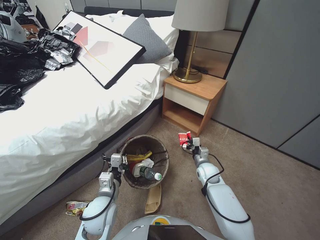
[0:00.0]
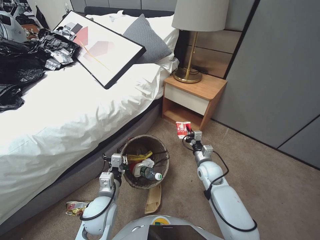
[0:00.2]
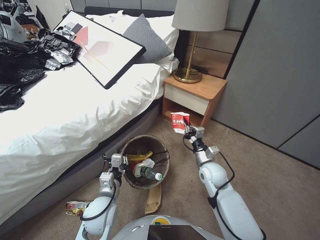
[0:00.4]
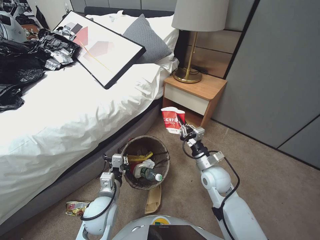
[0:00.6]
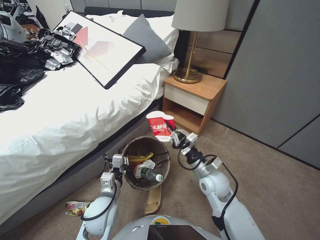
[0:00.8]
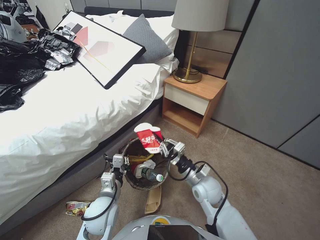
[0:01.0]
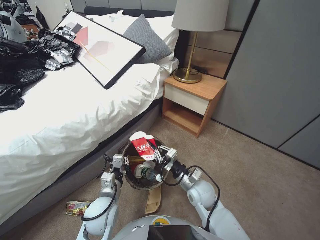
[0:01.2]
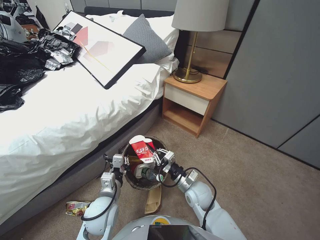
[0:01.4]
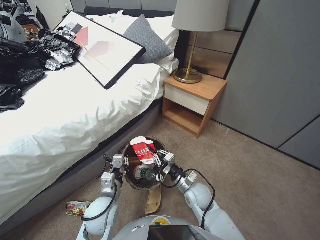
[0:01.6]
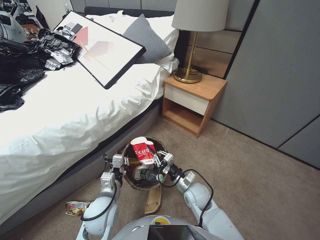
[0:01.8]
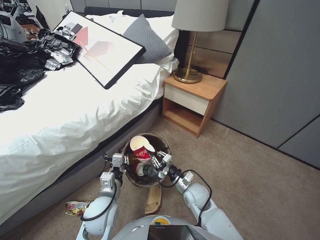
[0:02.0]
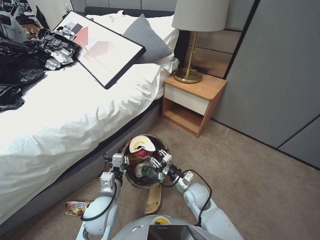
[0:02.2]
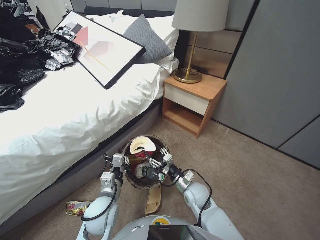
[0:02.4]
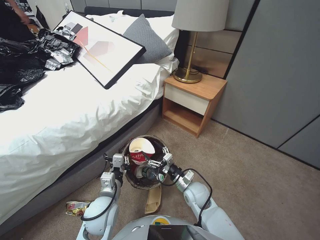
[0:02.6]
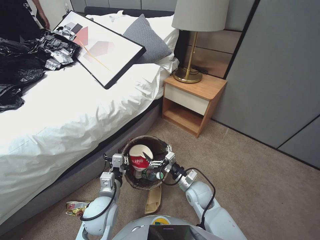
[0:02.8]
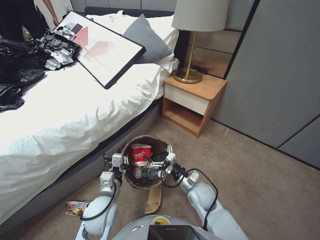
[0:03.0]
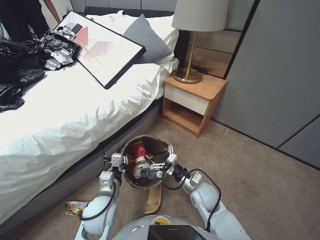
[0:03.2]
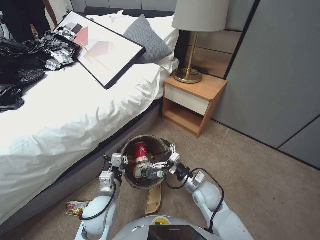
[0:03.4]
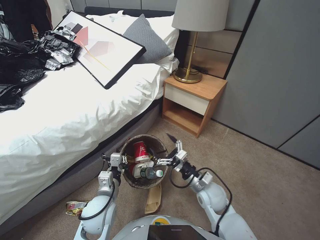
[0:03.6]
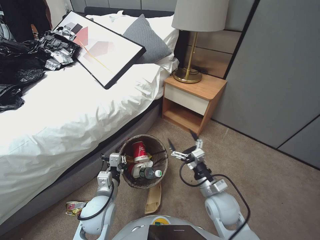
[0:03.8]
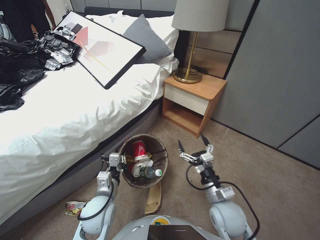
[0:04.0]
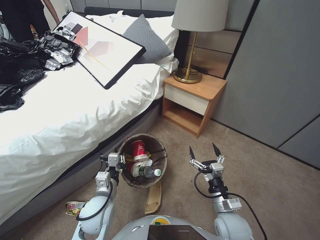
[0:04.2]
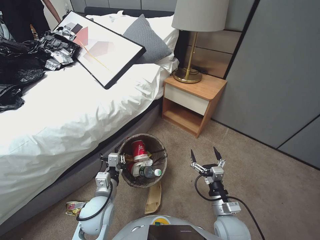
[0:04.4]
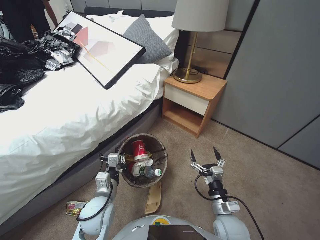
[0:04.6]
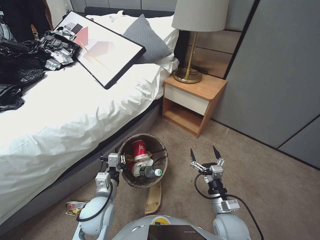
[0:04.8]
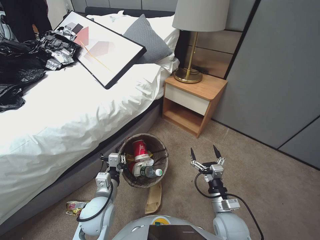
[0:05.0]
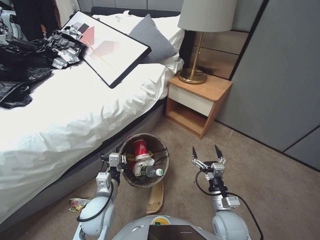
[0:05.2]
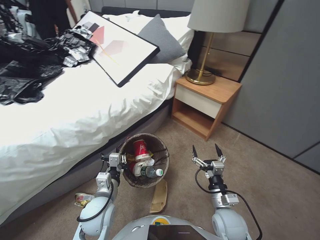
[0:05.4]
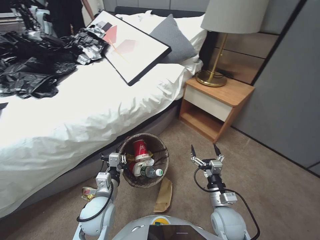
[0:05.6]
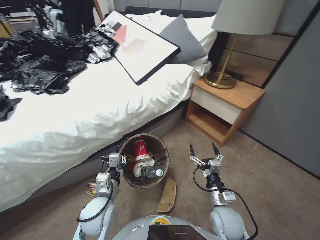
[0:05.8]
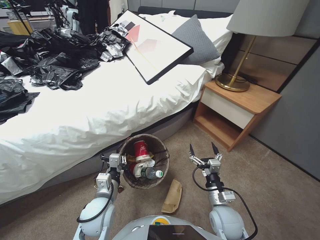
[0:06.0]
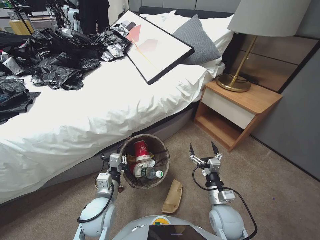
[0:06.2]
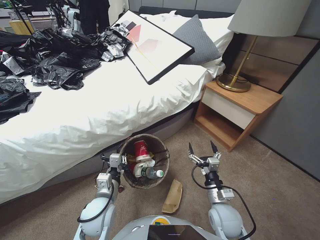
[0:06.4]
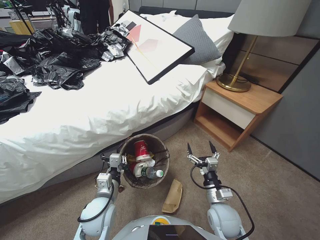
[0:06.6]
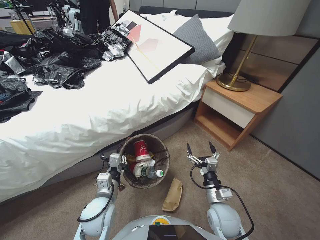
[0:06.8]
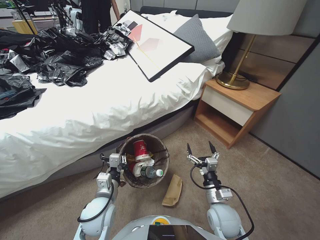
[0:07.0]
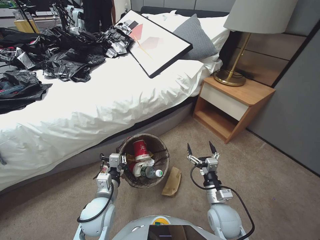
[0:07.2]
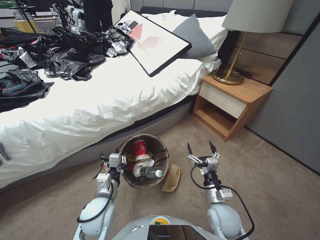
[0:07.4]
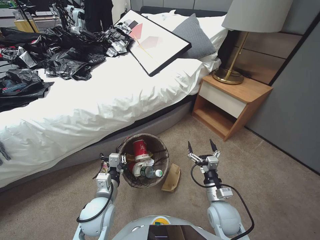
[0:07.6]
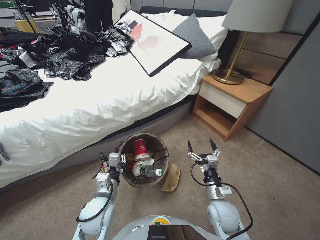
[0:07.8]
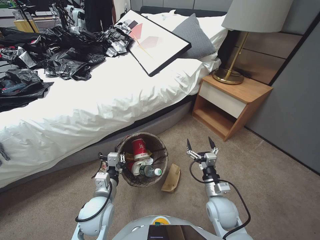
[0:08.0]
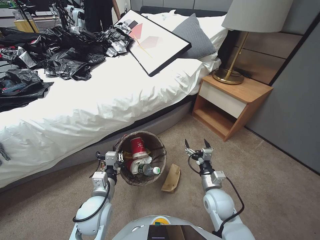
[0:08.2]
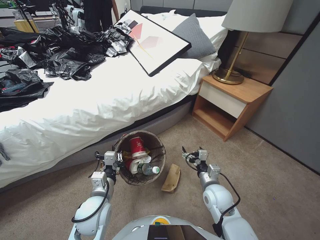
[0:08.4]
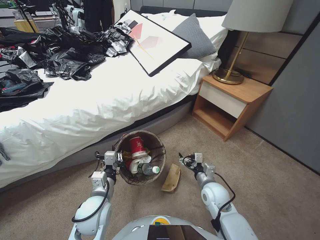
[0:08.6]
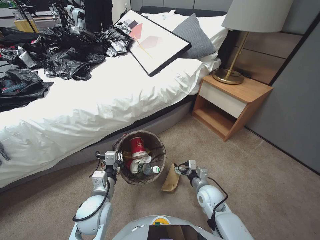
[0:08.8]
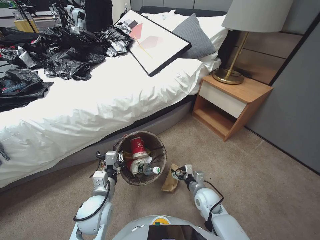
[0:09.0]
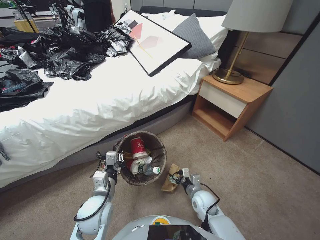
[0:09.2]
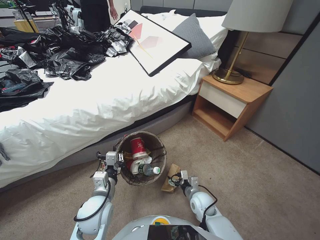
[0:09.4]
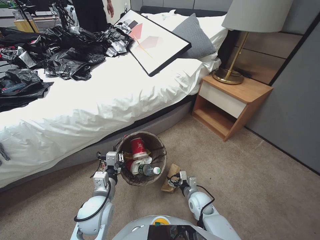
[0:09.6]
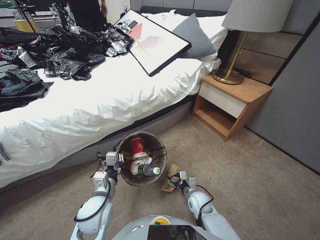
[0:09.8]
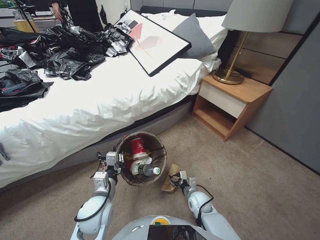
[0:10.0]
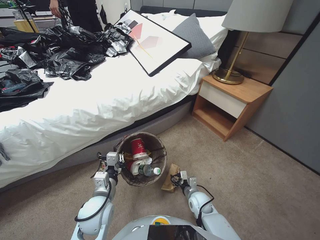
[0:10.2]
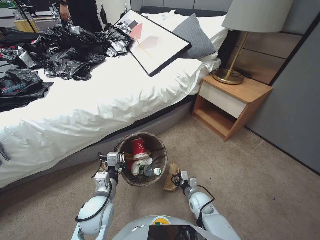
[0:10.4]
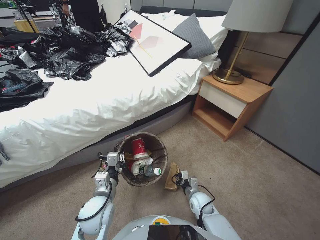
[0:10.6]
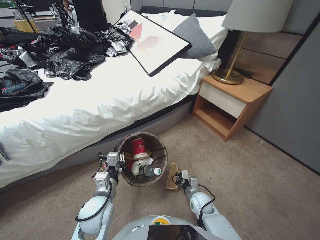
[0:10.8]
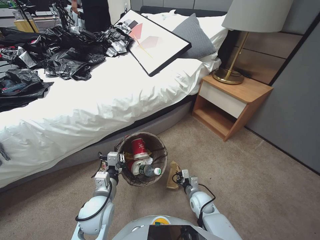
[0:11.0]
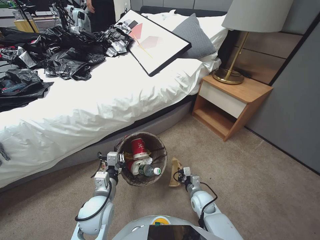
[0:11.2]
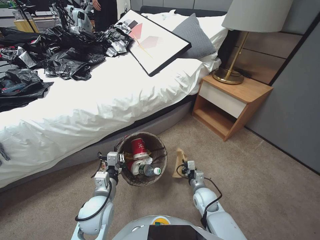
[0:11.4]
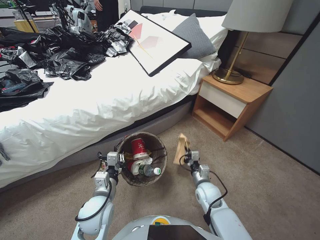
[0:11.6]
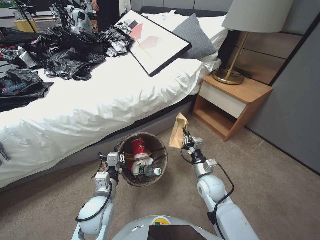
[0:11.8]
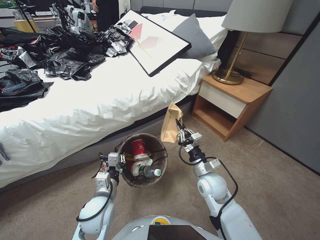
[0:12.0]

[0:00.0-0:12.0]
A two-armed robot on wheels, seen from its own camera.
Task of the whole recording: Pick up the trash bin, then pick up the garbage from the floor and place it into the trash bin.
0:00.0 to 0:01.6: The right gripper heads backward, to the left and upward, covering about 20 cm.
0:01.6 to 0:03.0: The right gripper opens.
0:03.0 to 0:04.4: The right gripper moves backward and to the right, some 15 cm.
0:07.6 to 0:09.0: The right gripper goes some 10 cm forward.
0:09.0 to 0:10.4: The right gripper goes about 10 cm downward, and closes its fingers.
0:10.4 to 0:12.0: The right gripper goes roughly 20 cm upward.

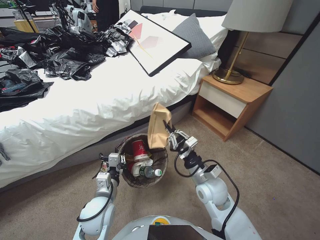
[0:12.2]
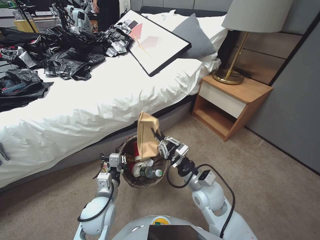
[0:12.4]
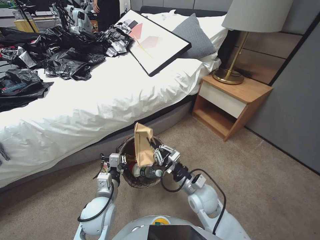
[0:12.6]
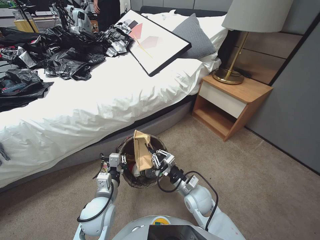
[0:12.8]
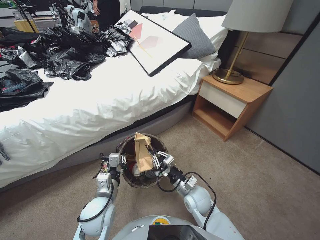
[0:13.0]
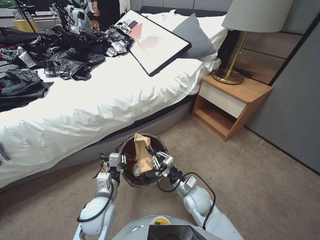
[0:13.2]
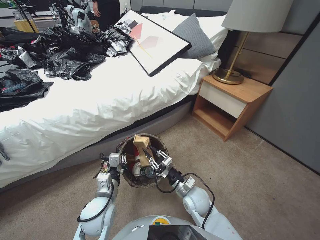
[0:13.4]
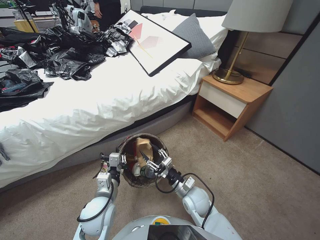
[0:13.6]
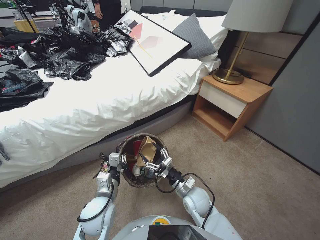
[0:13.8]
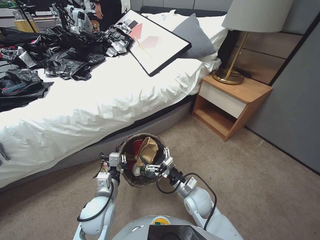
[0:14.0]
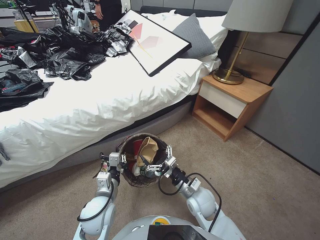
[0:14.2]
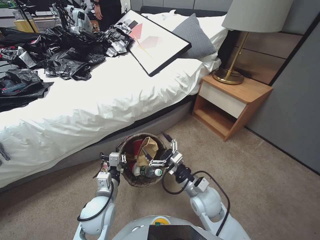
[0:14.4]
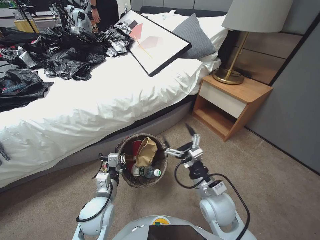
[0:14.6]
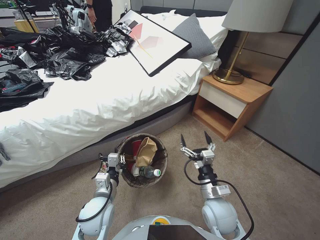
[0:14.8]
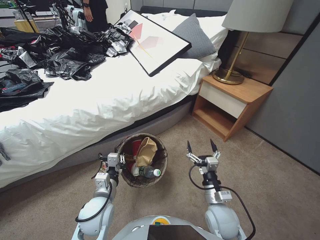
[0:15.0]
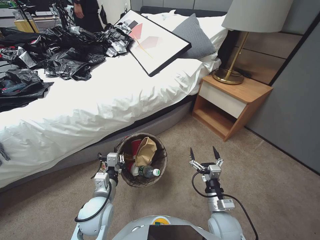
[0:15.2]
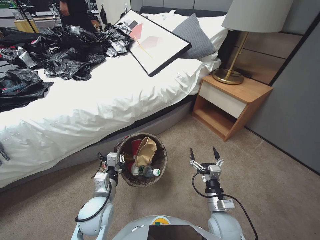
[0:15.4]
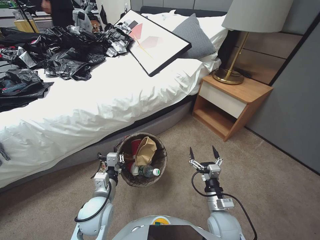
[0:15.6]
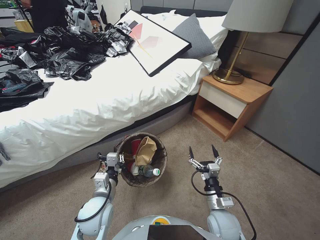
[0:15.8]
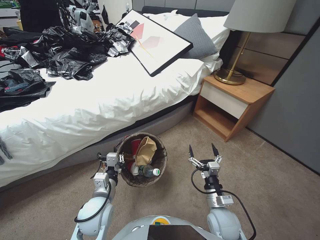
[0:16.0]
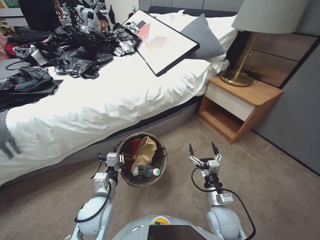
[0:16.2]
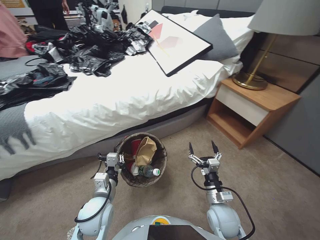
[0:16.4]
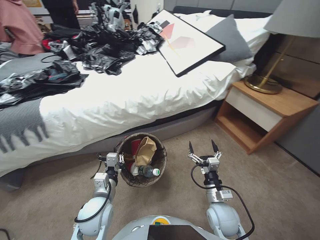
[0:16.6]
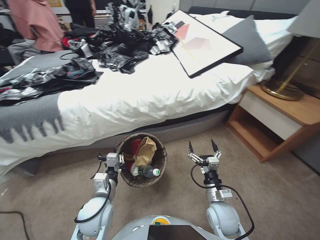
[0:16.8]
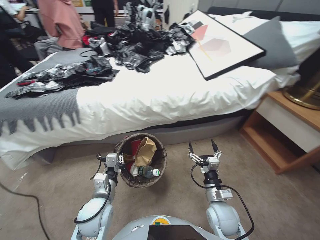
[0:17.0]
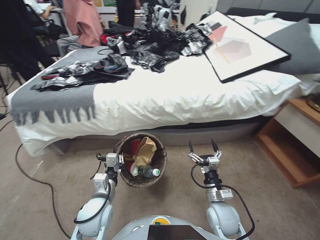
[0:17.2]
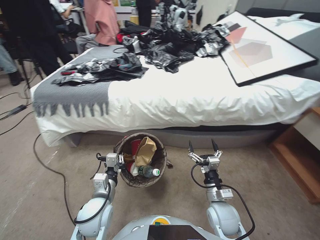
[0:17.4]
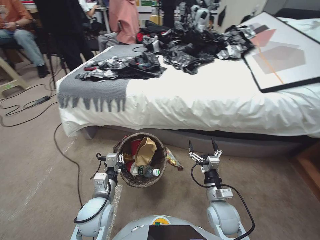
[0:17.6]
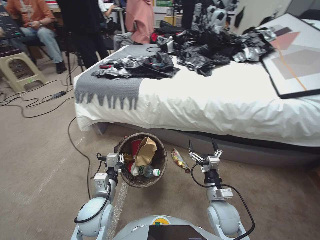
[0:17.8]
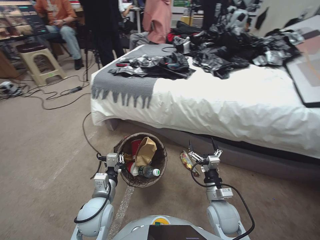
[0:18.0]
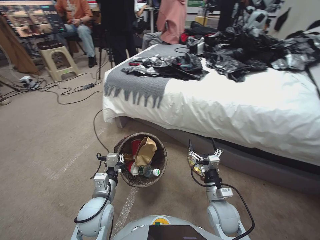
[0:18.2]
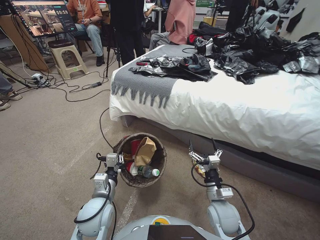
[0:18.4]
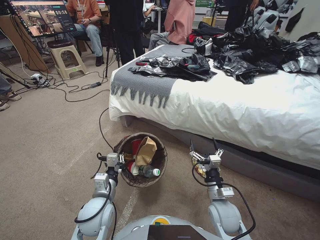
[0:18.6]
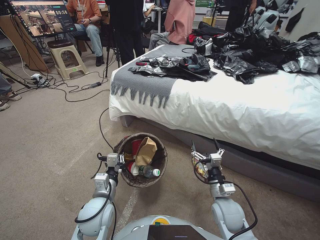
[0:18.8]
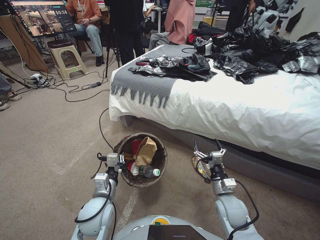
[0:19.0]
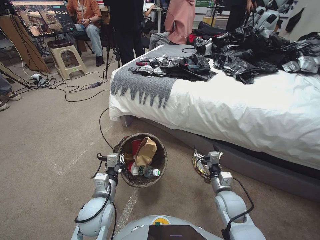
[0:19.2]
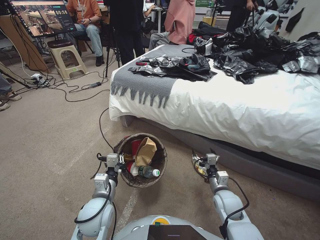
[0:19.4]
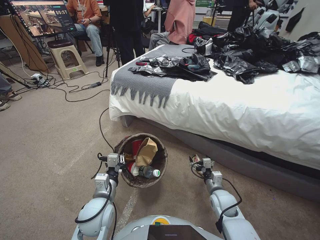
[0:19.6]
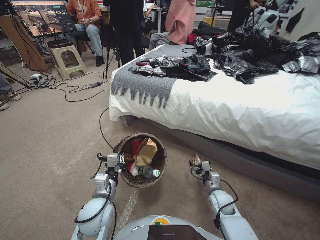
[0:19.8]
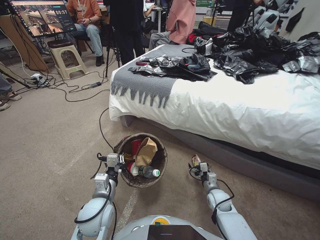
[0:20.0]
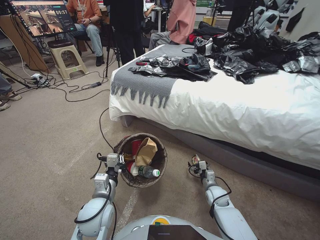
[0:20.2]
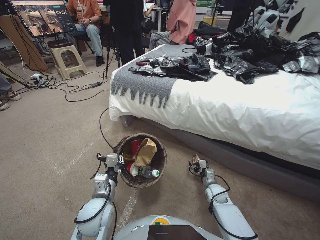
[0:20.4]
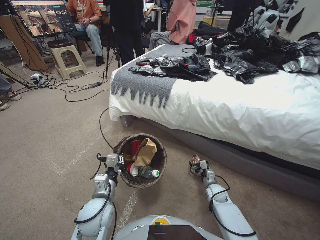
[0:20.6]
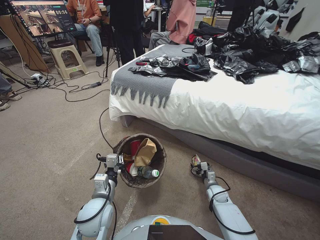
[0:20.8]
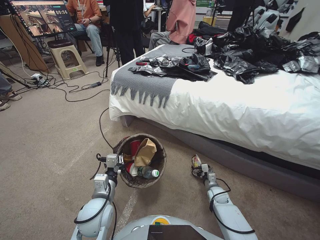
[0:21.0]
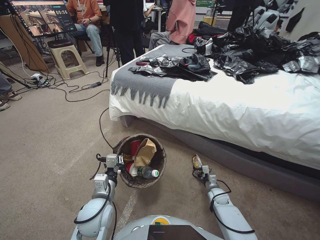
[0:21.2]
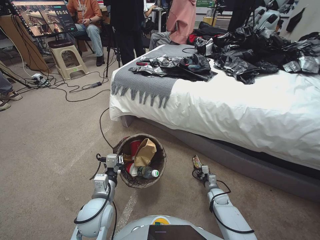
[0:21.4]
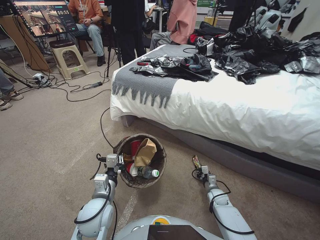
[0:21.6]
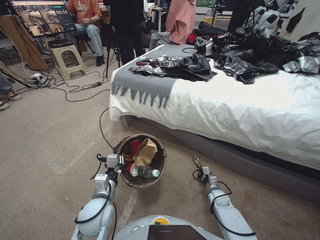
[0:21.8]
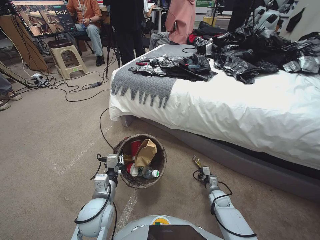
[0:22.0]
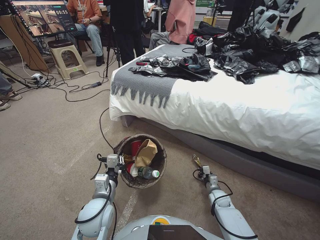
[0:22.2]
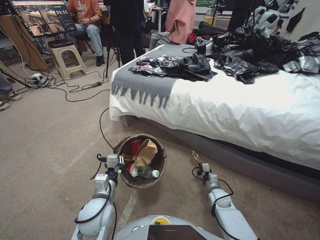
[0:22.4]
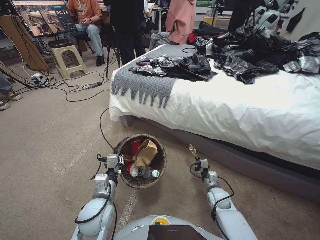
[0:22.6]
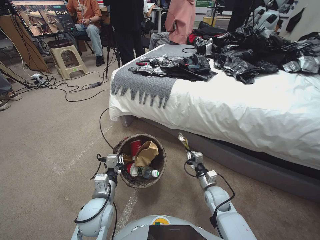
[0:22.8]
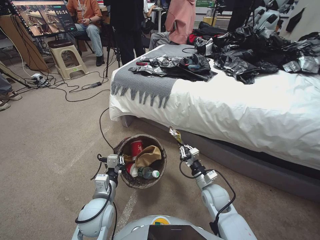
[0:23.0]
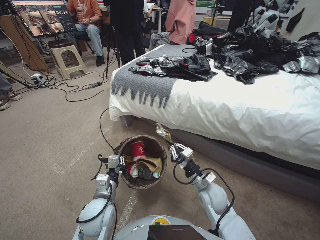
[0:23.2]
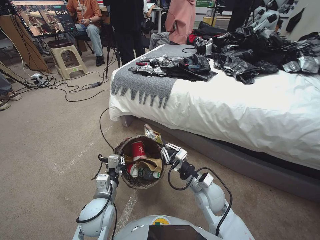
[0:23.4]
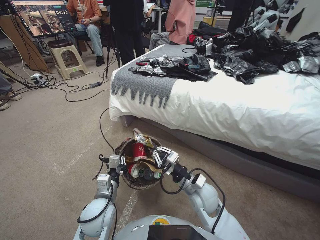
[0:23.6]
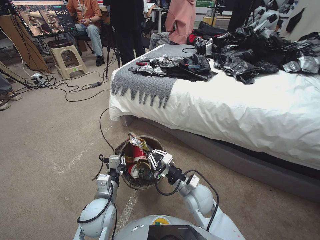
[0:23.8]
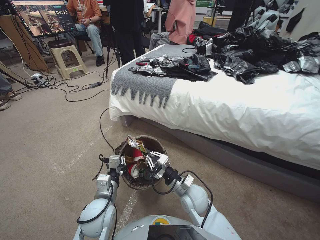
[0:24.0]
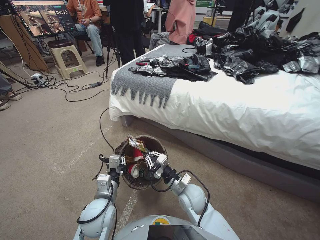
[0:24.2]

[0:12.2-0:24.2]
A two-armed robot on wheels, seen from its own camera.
Task of the whole recording: Pick up the trash bin, then pick up the garbage from the floor and place it into the trash bin.
0:12.2 to 0:13.8: The right gripper is displaced downward by approximately 10 cm, and opens up.
0:13.8 to 0:15.2: The right gripper shifts roughly 10 cm to the right and backward, and goes upward and returns, roughly 10 cm each way.
0:18.2 to 0:19.8: The right gripper moves approximately 10 cm.
0:19.8 to 0:21.2: The right gripper travels downward by about 15 cm.
0:21.2 to 0:22.6: The right gripper closes.
0:22.6 to 0:24.2: The right gripper travels to the left and upward by some 25 cm.
